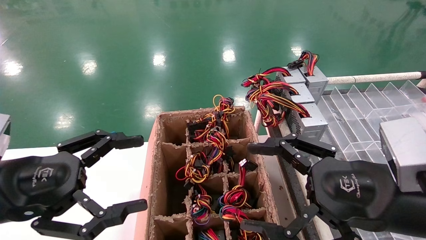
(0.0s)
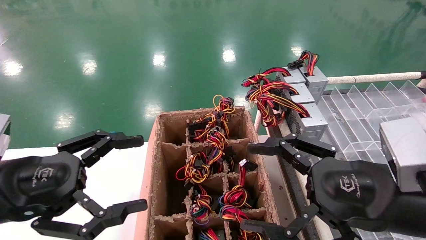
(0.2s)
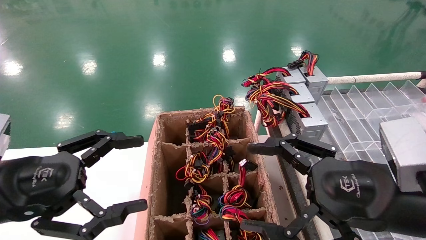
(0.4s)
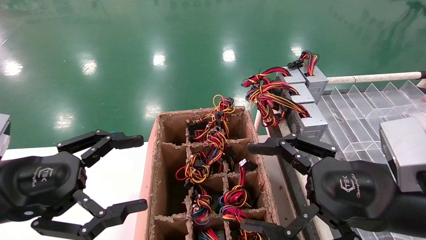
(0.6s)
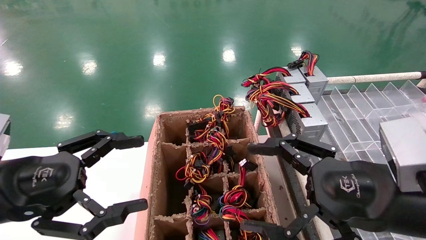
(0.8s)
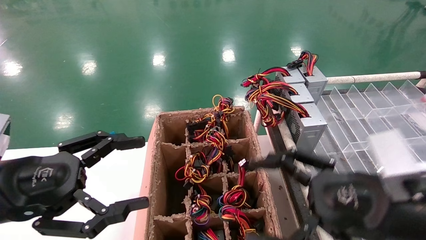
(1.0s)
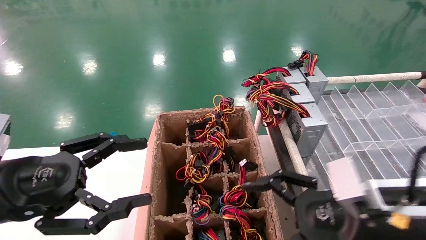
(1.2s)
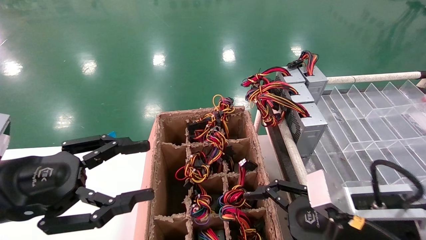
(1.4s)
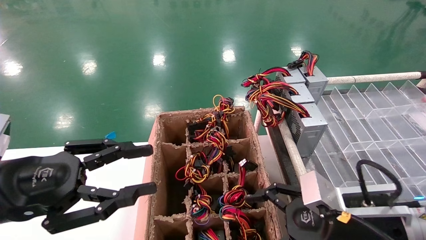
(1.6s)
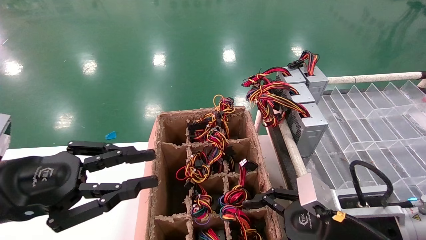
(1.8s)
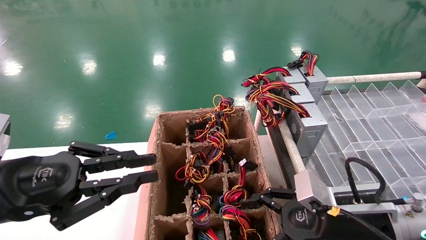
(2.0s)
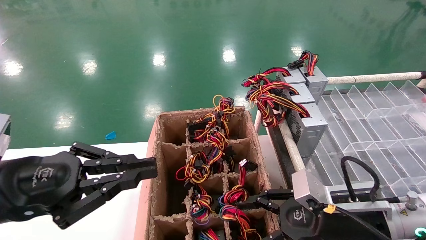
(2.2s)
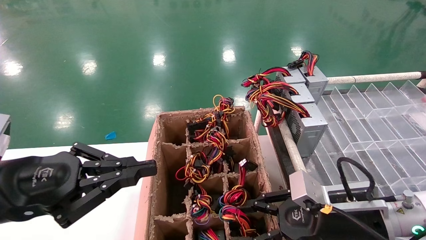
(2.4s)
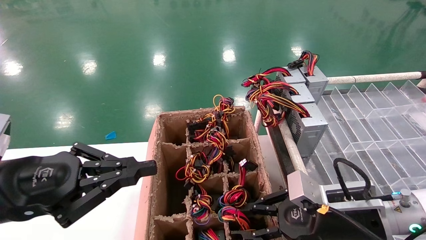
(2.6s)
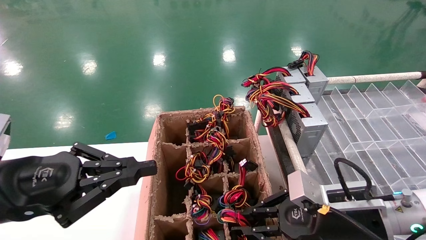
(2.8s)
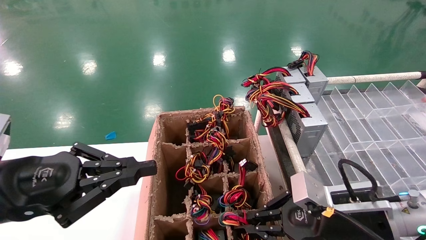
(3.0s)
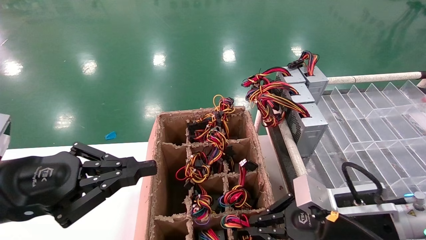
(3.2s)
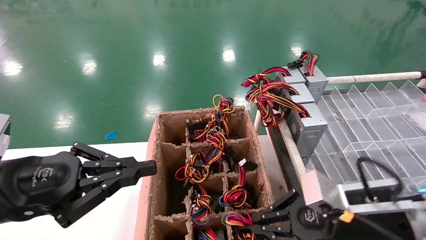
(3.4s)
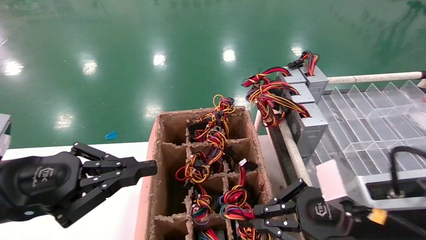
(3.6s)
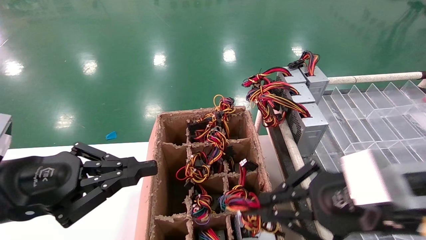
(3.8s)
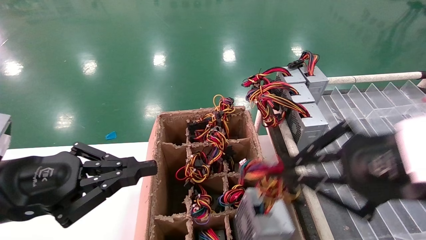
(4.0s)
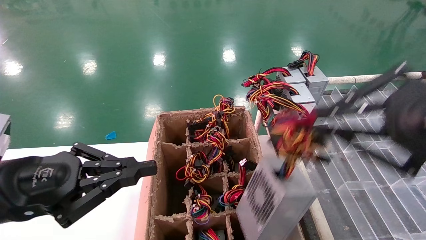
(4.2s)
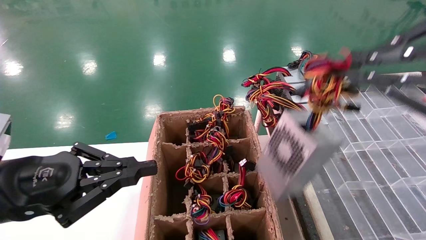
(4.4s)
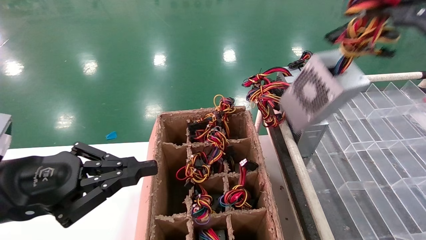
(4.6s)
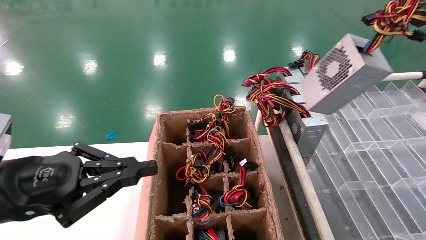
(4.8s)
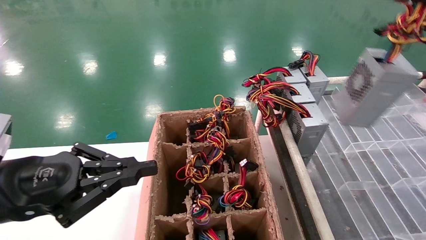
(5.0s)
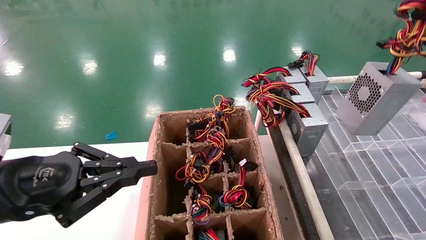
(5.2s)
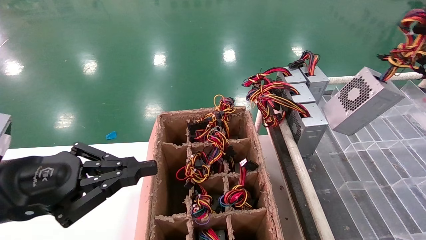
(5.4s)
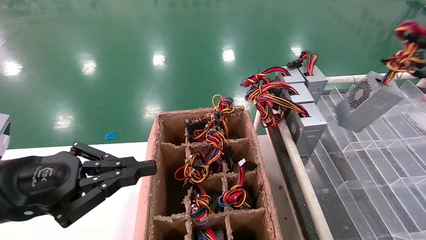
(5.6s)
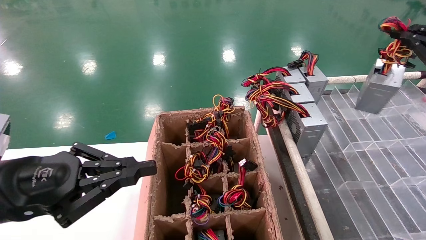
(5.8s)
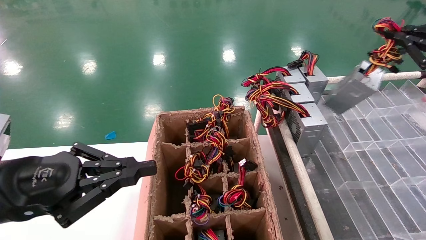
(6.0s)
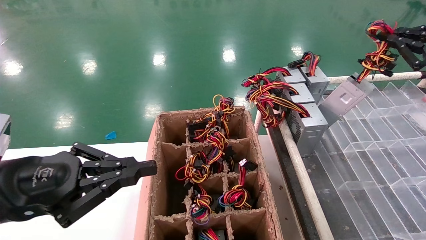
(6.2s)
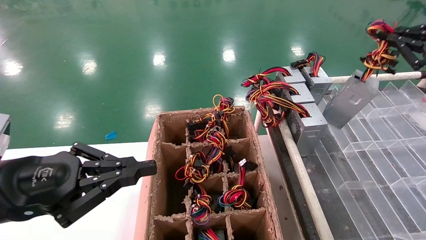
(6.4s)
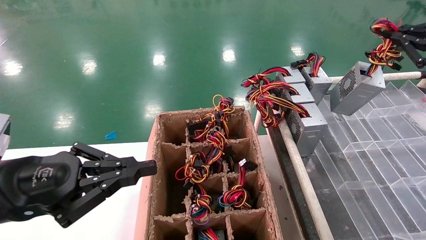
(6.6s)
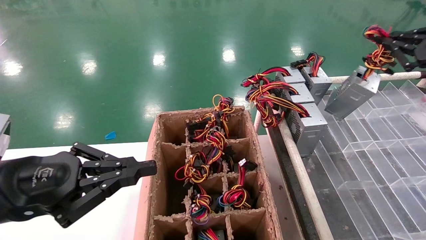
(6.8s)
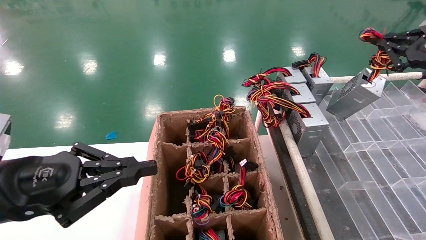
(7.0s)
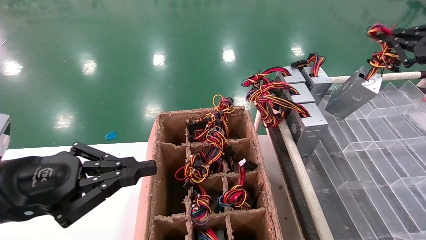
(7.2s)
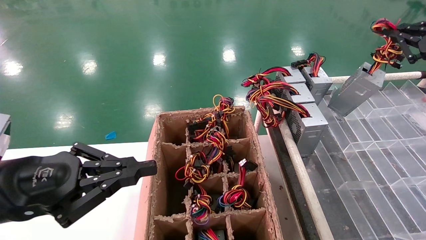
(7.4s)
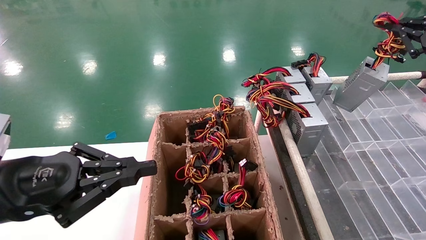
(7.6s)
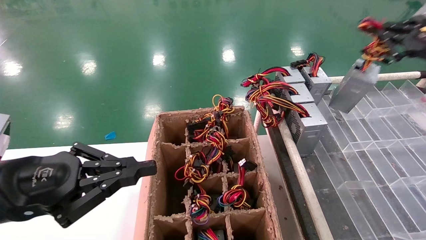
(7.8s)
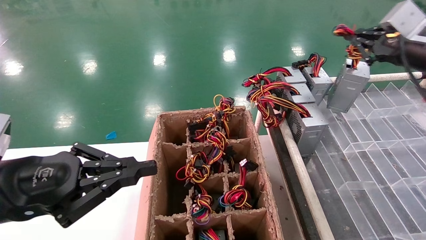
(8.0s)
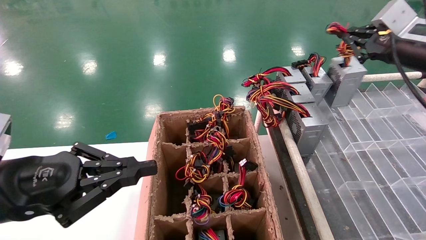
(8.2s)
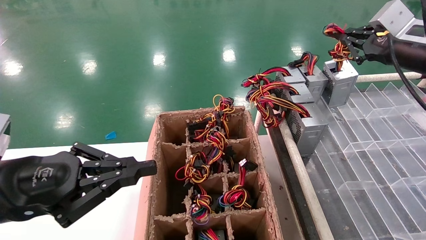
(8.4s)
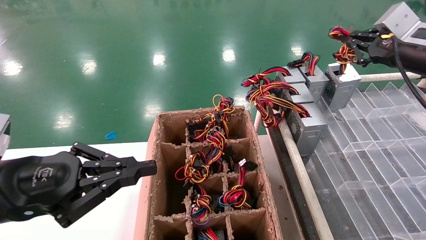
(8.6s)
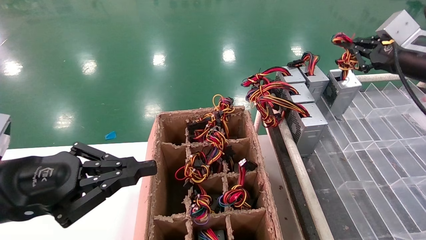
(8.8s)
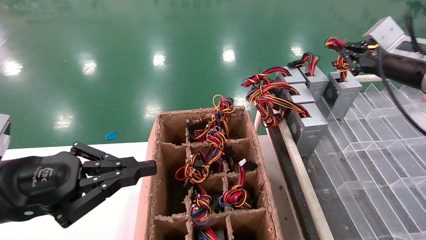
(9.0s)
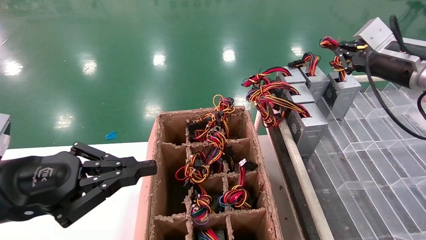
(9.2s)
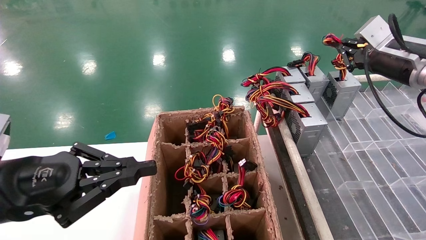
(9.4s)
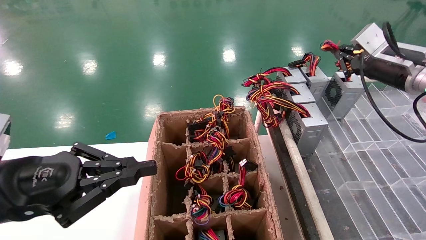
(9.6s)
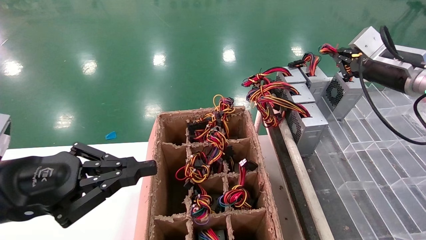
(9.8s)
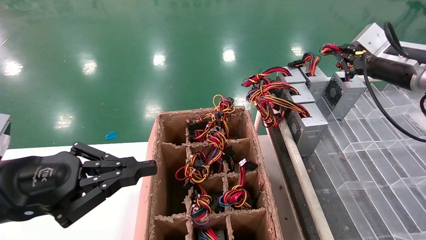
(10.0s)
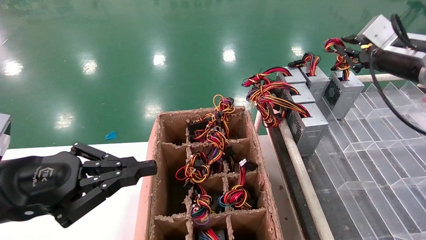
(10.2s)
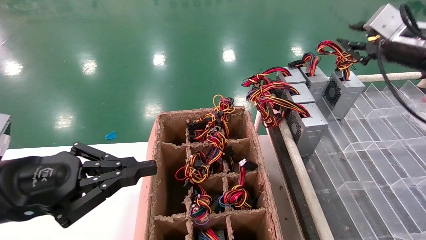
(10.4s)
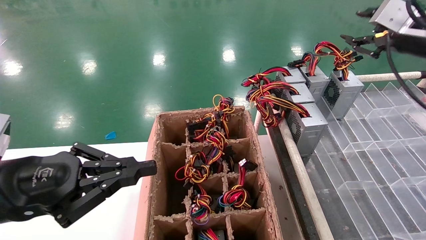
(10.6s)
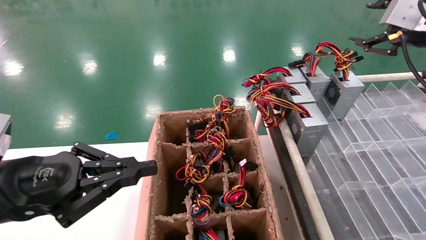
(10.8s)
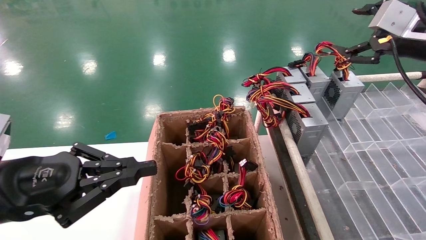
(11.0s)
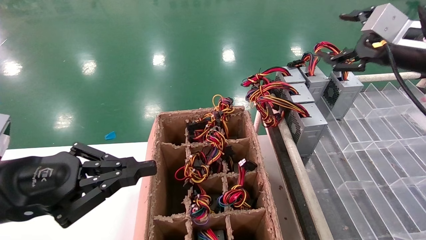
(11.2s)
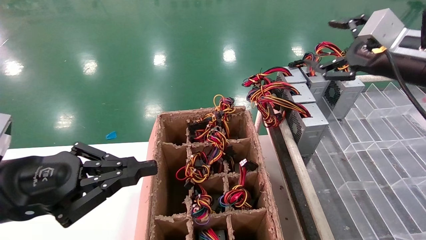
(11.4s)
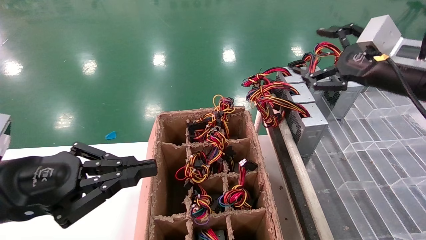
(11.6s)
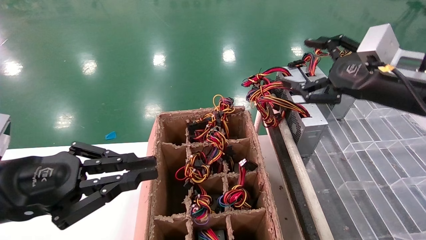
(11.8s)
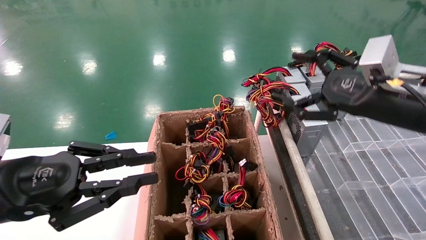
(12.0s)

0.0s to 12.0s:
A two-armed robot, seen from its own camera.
Step, 1.4s to 3.0s: Grab the main unit power supply from the containment box.
Step, 3.2s to 10.8s: Place the main unit power supply in the designated area.
0.0s to 1.6s: The right gripper travels downward and forward by some 10 cm; the left gripper closes its fingers.
1.6s to 3.0s: The right gripper closes its fingers. Meanwhile the left gripper closes its fingers.
3.0s to 4.4s: The right gripper is displaced upward and backward by some 30 cm.
4.4s to 6.0s: The right gripper goes approximately 25 cm forward and to the right.
6.0s to 7.6s: The right gripper shifts by some 5 cm.
7.6s to 9.0s: The right gripper goes roughly 10 cm forward and to the left.
9.0s to 10.4s: The grippers make only small movements.
10.4s to 12.0s: The right gripper shifts some 15 cm to the left, backward and downward, and opens up.

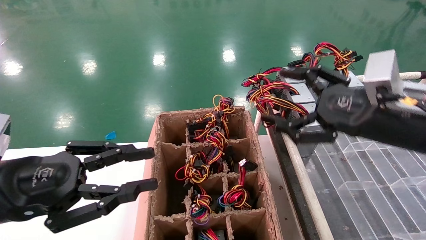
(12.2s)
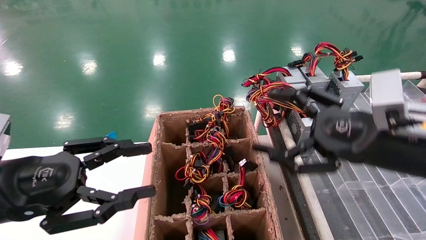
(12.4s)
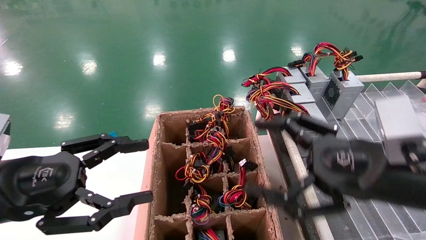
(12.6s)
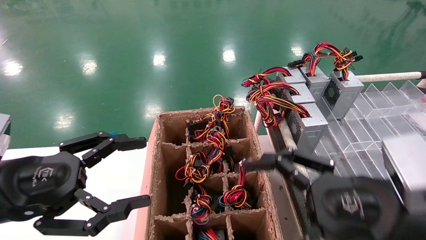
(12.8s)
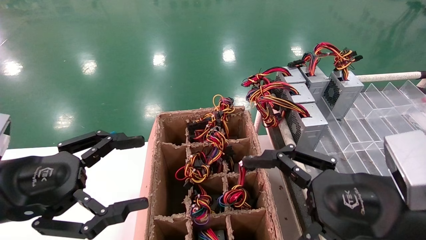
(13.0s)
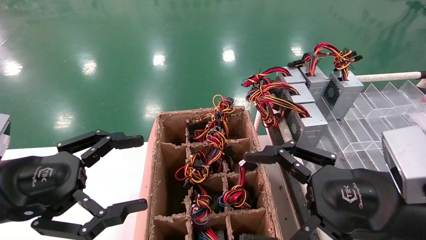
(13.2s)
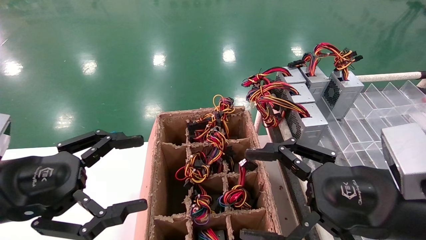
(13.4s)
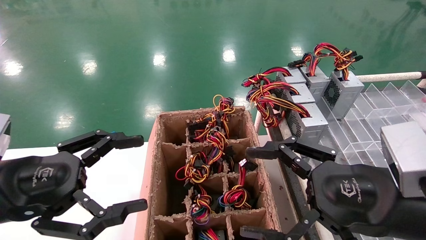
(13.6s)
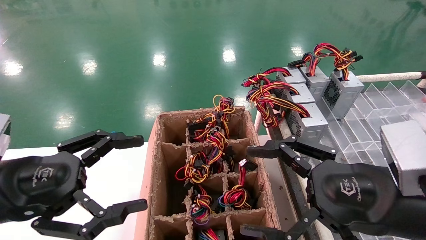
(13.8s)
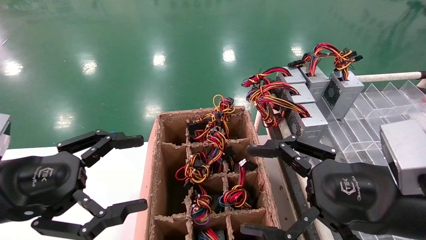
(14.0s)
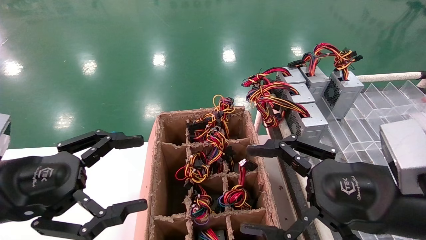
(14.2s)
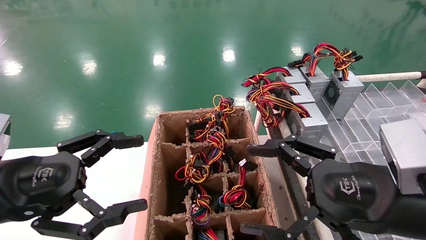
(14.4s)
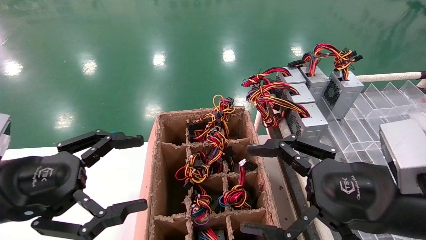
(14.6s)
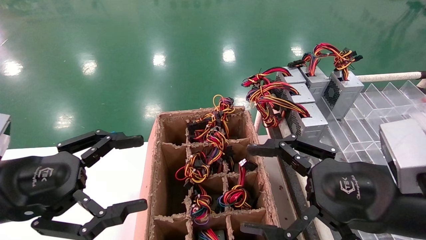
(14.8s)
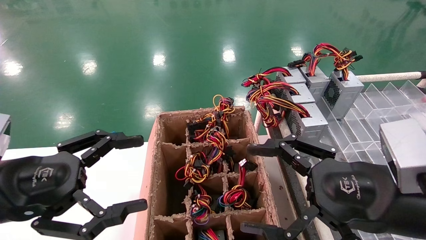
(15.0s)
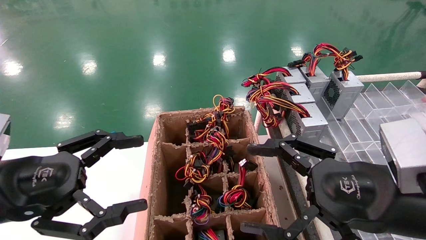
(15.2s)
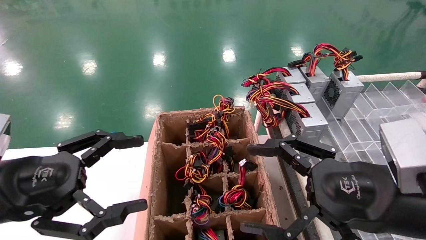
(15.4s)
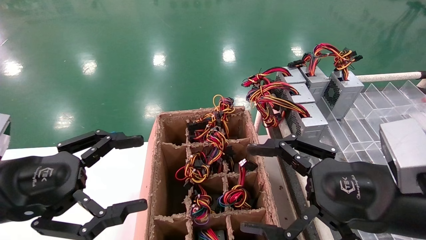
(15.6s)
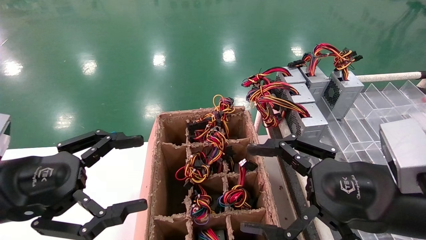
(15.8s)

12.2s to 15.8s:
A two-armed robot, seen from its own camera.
12.2s to 14.0s: The right gripper goes approximately 10 cm backward and downward; the left gripper opens its fingers.
14.0s to 15.8s: The two grippers keep their place.

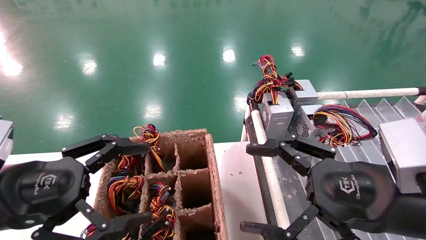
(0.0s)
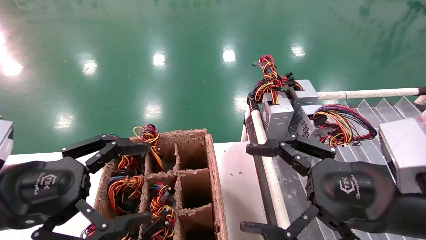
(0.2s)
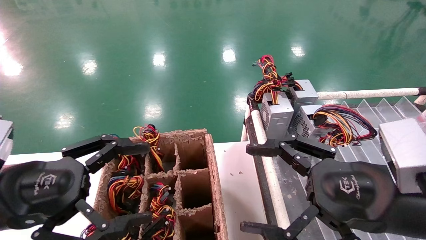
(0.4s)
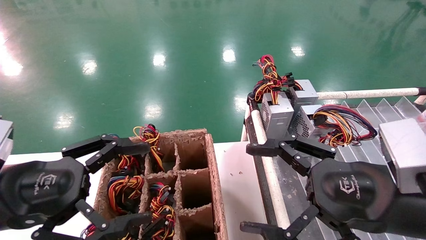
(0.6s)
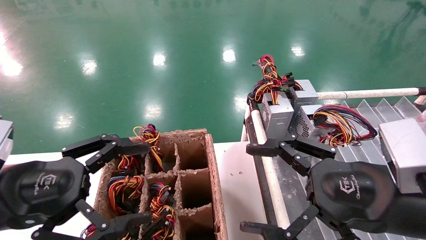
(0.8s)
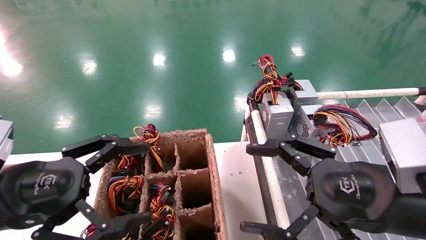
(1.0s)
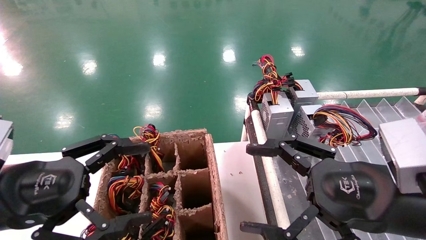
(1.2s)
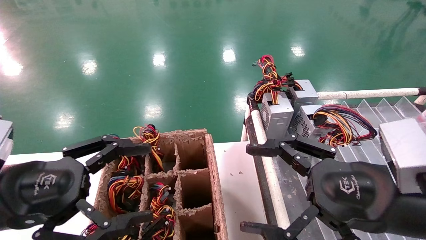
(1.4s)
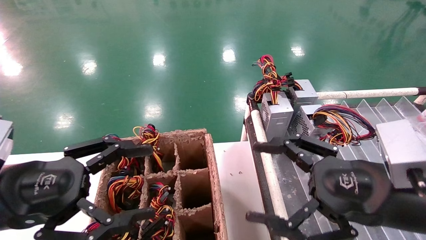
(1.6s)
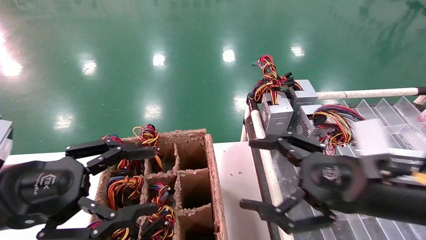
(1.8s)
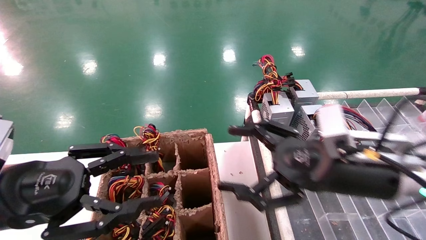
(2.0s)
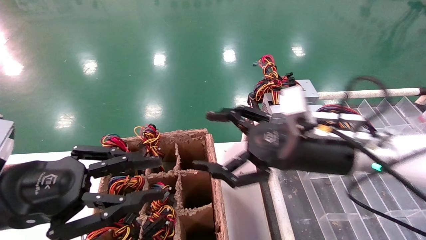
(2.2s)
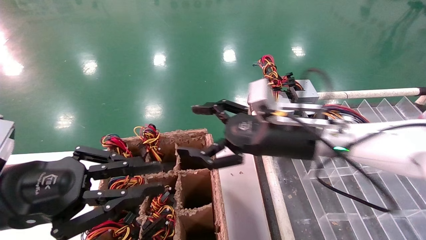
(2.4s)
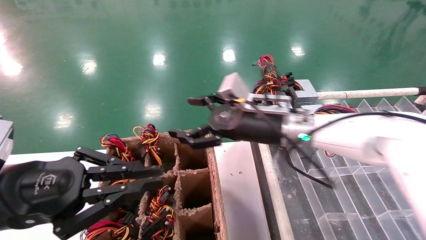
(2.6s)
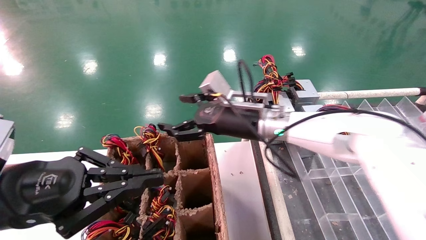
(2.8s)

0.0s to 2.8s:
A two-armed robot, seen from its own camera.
0.0s to 1.4s: Neither gripper changes place.
1.4s to 2.8s: The left gripper closes up. Meanwhile the right gripper shifts about 25 cm forward and to the left.
